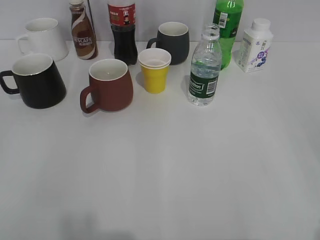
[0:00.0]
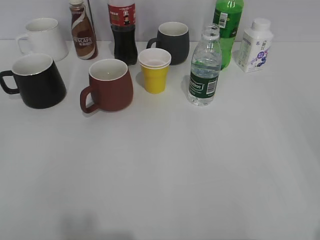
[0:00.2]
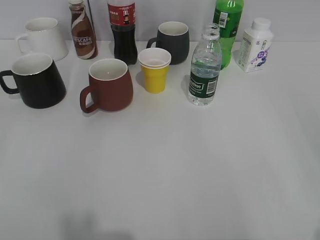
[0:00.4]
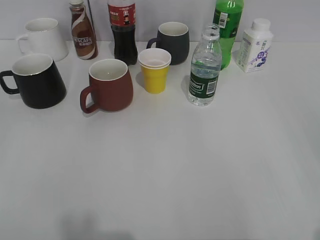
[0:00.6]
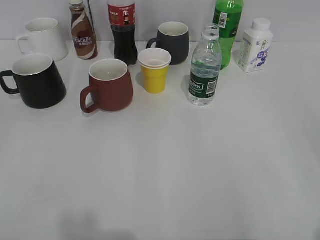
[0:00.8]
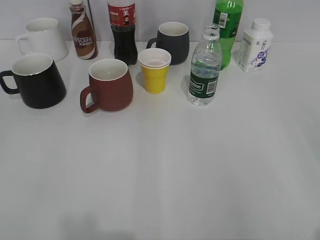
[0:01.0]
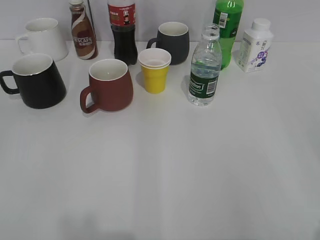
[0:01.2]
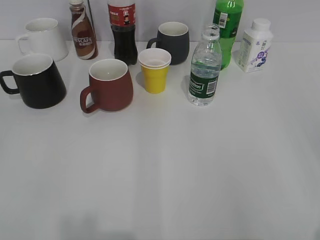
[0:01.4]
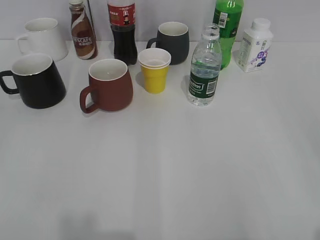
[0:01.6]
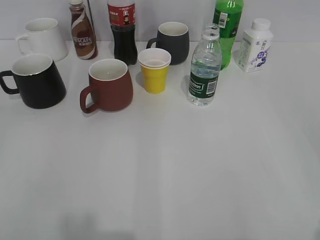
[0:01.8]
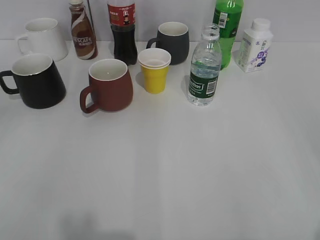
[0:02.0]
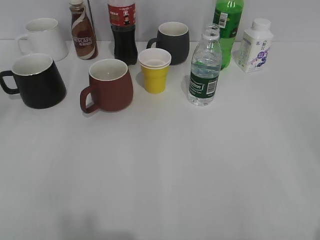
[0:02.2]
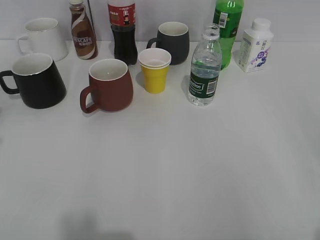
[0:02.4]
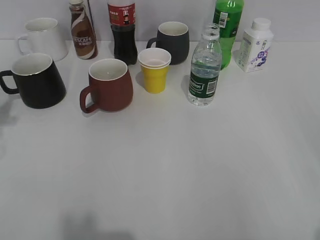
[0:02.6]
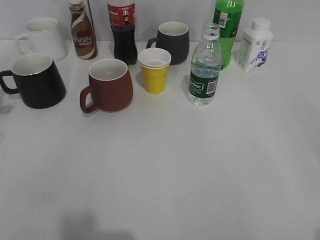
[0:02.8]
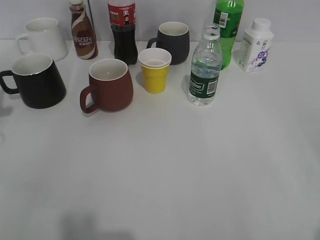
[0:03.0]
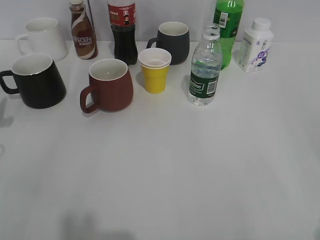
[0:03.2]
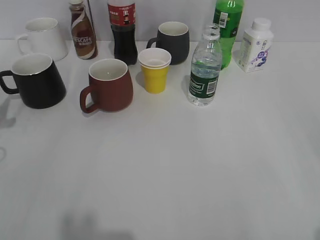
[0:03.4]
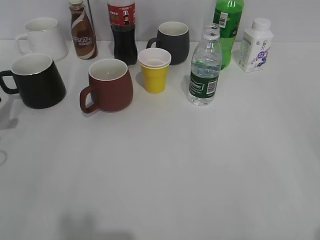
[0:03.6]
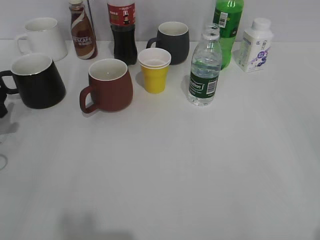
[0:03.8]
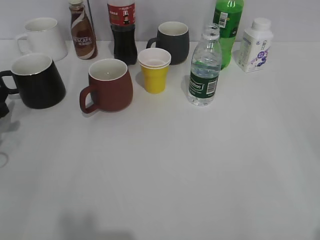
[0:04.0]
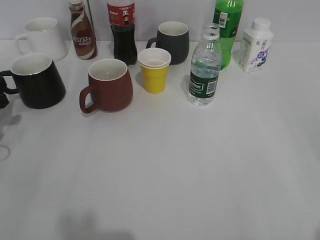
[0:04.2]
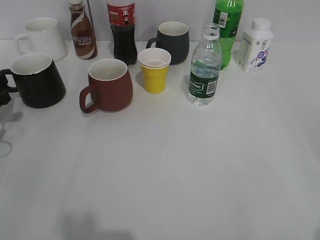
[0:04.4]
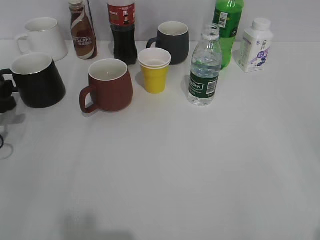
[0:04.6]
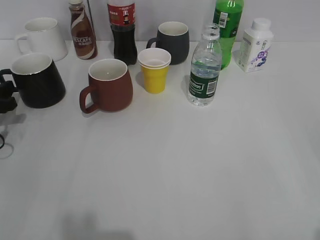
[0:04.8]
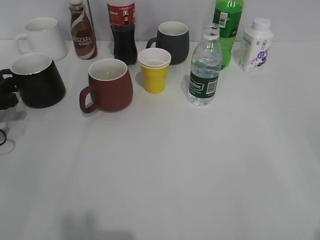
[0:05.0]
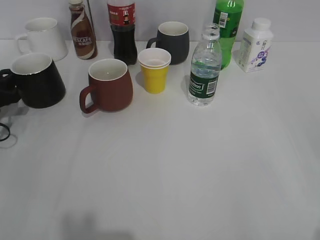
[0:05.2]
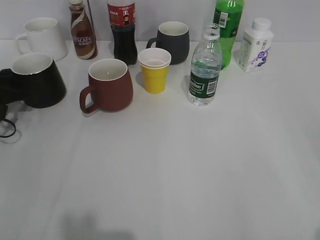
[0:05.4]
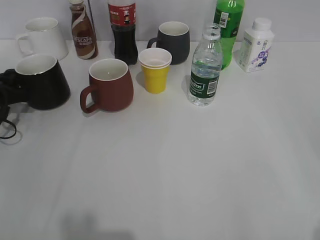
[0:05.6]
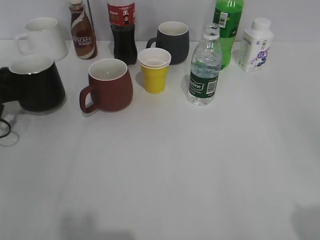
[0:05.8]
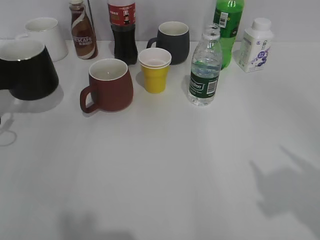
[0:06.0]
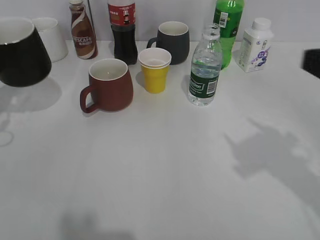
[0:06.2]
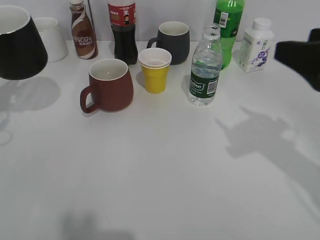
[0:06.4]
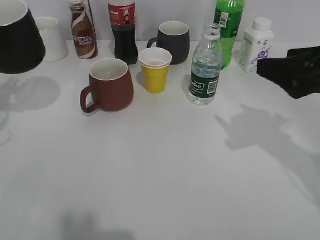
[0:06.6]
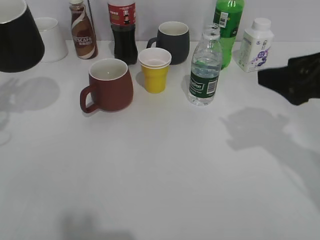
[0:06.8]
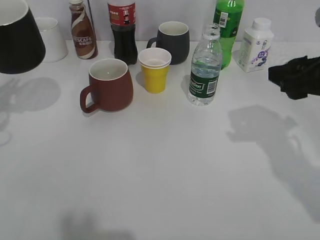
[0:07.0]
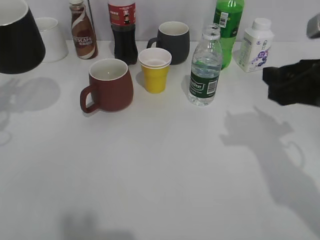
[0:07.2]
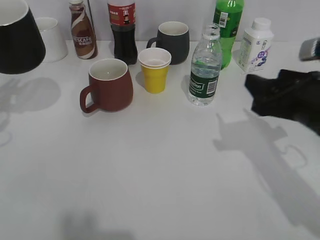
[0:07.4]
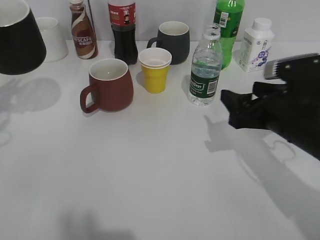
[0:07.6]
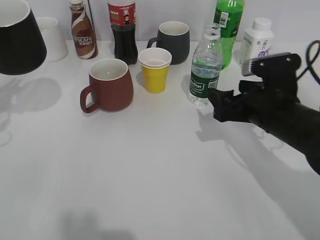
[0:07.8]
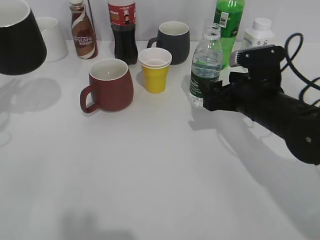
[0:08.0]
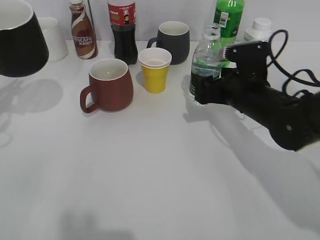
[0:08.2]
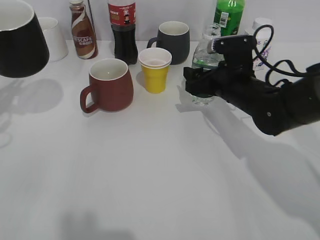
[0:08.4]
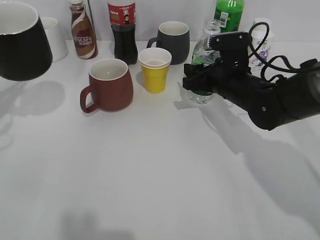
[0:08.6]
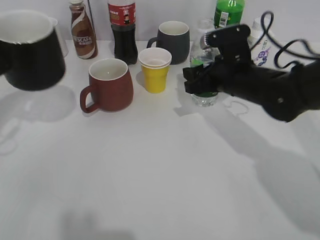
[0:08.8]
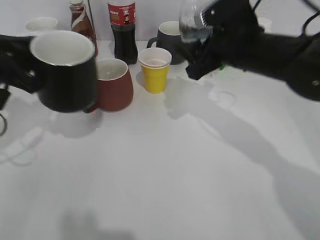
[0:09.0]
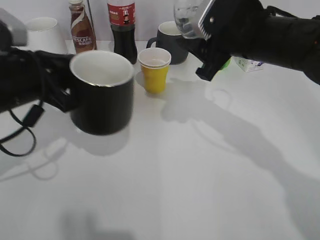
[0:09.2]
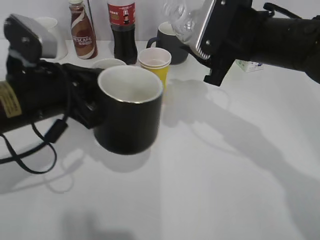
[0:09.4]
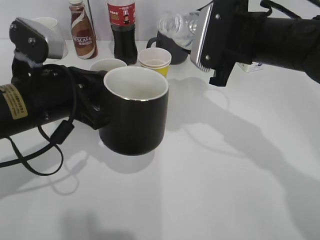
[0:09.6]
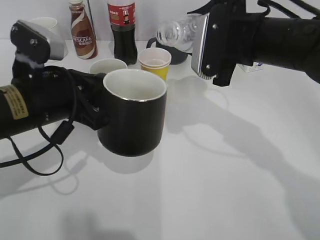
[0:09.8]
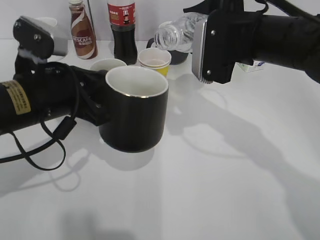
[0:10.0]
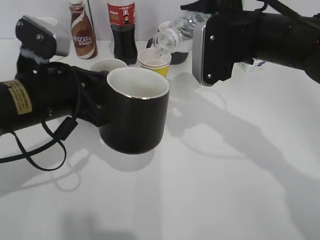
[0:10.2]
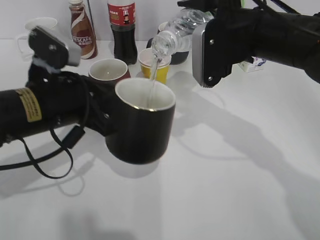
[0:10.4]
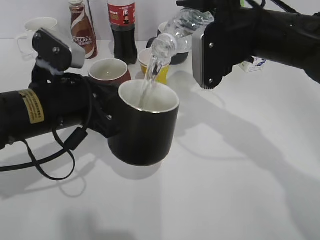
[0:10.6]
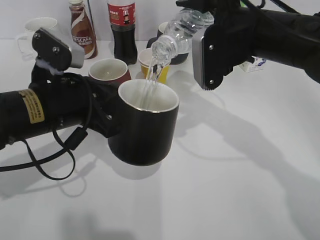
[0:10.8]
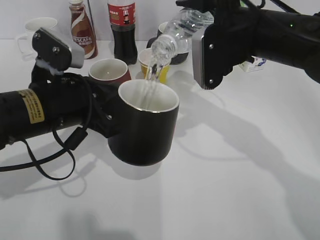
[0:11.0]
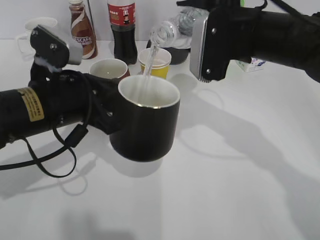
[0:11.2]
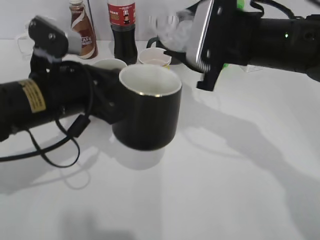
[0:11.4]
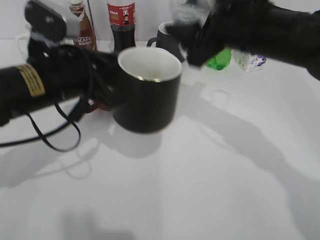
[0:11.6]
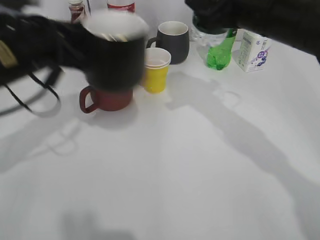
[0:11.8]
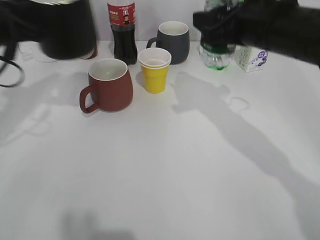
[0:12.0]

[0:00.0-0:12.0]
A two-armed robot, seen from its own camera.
Step, 0:05.8 to 0:06.6: Lift the black cup with left gripper.
Step, 0:07.0 to 0:08.4: Grasp the bottle with water with right gripper.
Step, 0:08.6 to 0:11.4: Pour the water from bottle to cup with right gripper.
0:01.6 to 0:03.0: The left gripper is displaced forward by about 30 cm.
0:03.0 to 0:04.4: The left gripper heads downward, covering about 10 cm.
0:04.4 to 0:06.0: The left gripper closes up. Meanwhile the right gripper heads forward, covering roughly 5 cm.
0:06.0 to 0:07.6: The right gripper heads forward, downward and to the left, covering about 25 cm. The left gripper shifts about 10 cm upward.
0:07.6 to 0:09.0: The left gripper heads to the right, covering some 5 cm; the right gripper goes approximately 10 cm forward and to the left, and closes its fingers.
0:09.0 to 0:10.4: The right gripper shifts by roughly 5 cm. Meanwhile the left gripper moves to the right, about 10 cm.
0:10.4 to 0:12.0: The left gripper is displaced to the left, forward and upward by some 10 cm.

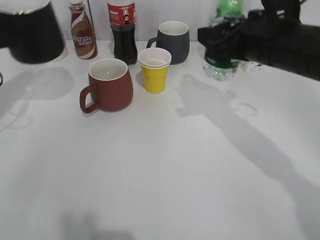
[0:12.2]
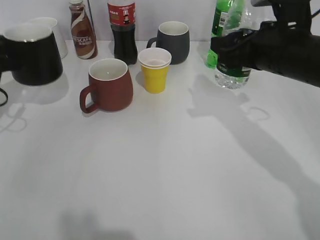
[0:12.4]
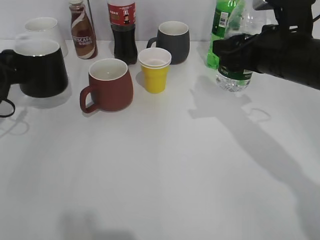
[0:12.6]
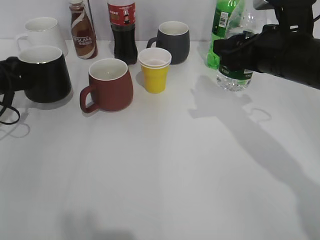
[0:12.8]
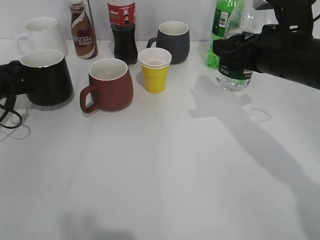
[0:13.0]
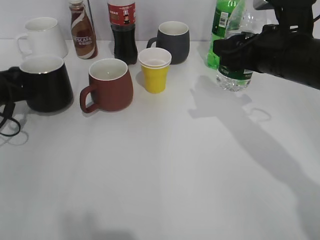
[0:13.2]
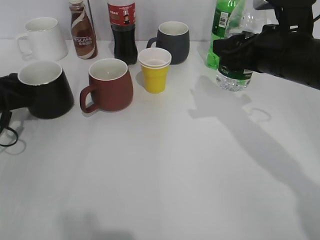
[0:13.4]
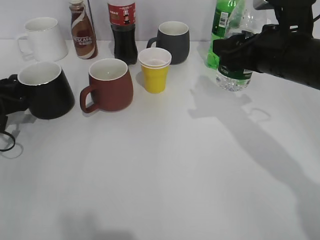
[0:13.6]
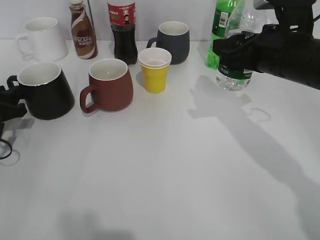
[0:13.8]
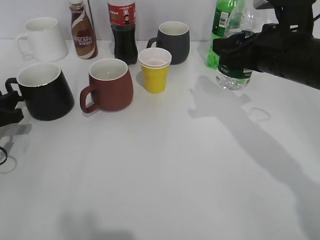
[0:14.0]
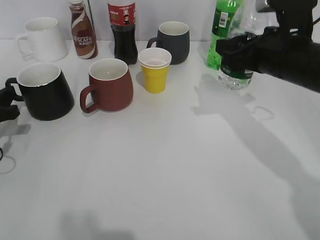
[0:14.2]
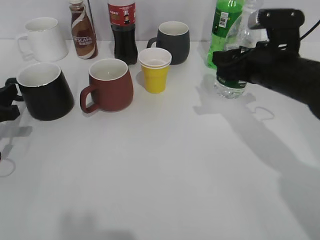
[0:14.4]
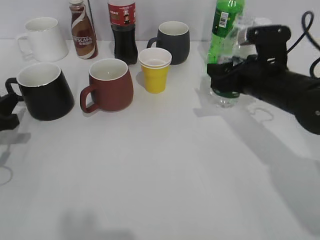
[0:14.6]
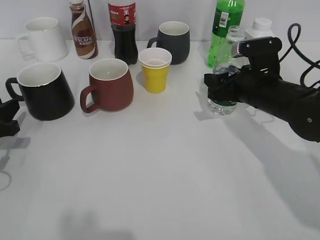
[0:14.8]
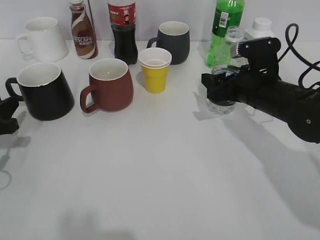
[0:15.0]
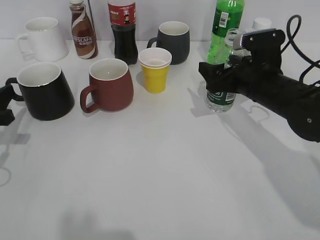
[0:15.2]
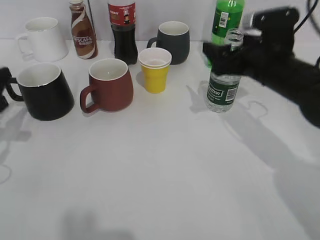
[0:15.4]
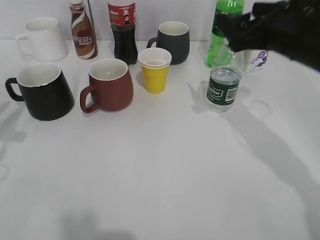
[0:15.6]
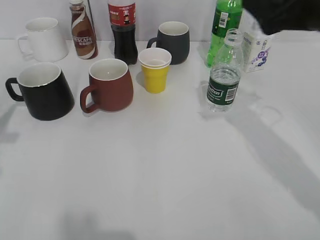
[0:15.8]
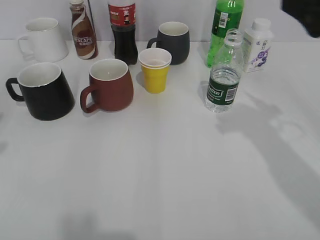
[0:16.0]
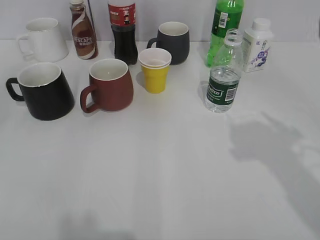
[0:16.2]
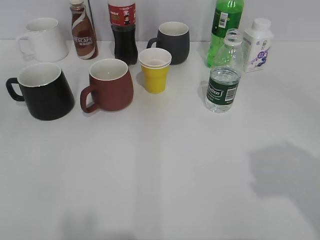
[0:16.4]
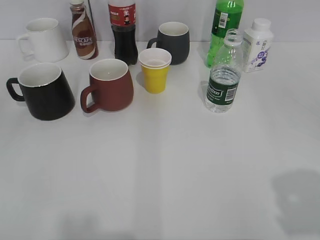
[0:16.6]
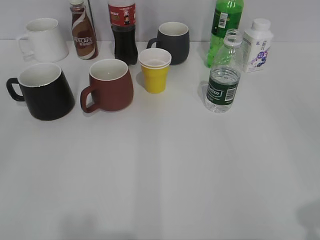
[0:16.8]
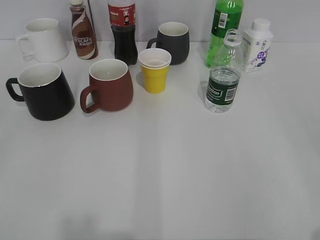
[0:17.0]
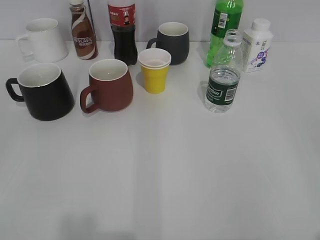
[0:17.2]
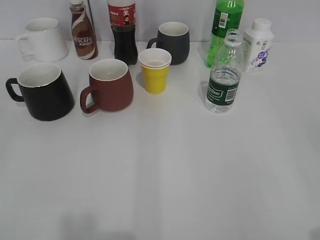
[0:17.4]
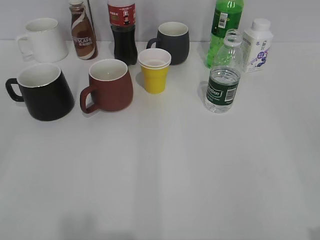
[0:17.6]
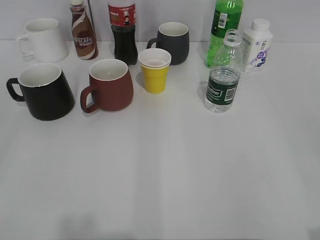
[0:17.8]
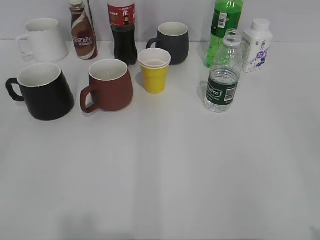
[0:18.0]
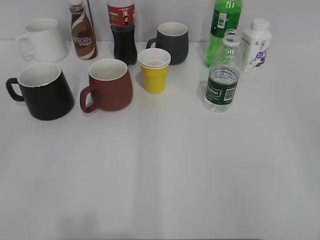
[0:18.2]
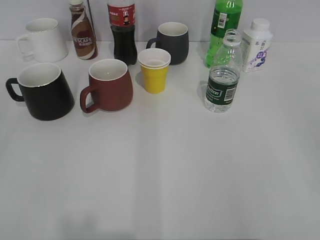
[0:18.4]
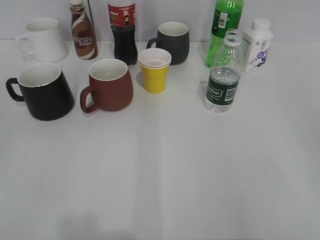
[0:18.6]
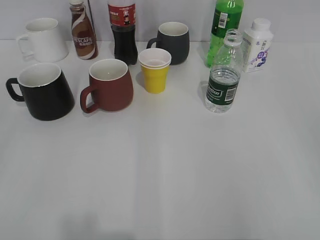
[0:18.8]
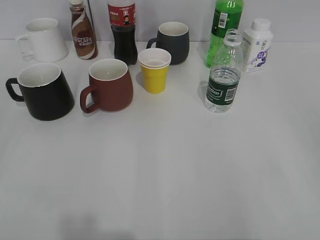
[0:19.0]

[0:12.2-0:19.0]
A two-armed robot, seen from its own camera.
Step, 0:12.2 to 0:13.6: Place the black cup on the table with left gripper.
Step, 0:13.8 to 0:15.2: Place the water bottle on the table with right gripper.
0:12.2 to 0:13.6: The left gripper moves downward, approximately 15 cm, and opens.
0:13.6 to 0:15.0: The right gripper shifts approximately 10 cm downward; the left gripper moves backward, about 5 cm.
0:15.0 to 0:16.2: Both grippers move upward and backward, roughly 25 cm. The right gripper opens its fingers.
